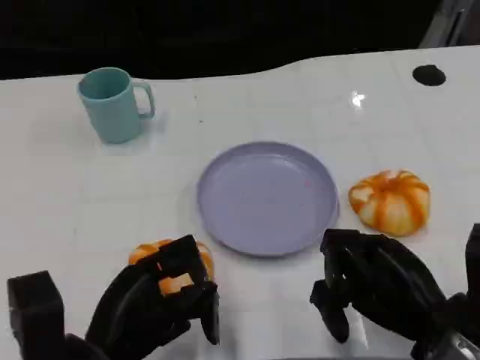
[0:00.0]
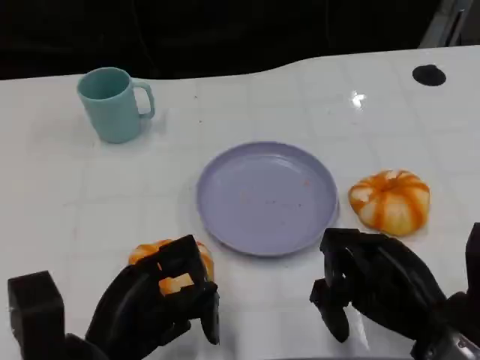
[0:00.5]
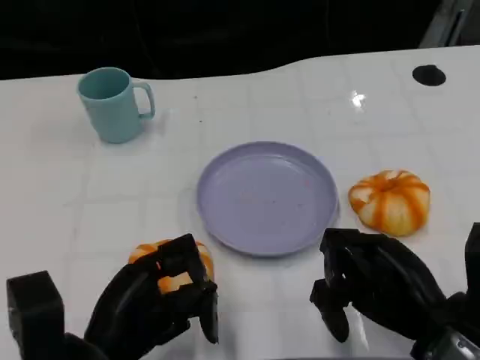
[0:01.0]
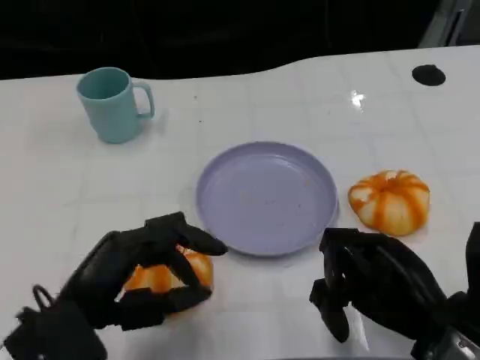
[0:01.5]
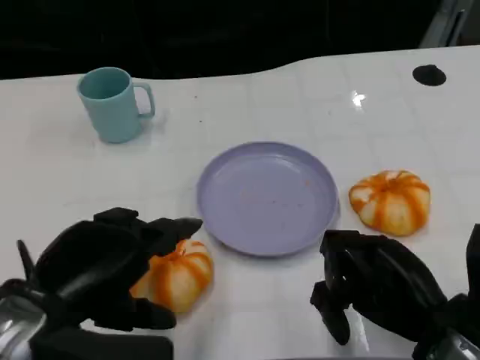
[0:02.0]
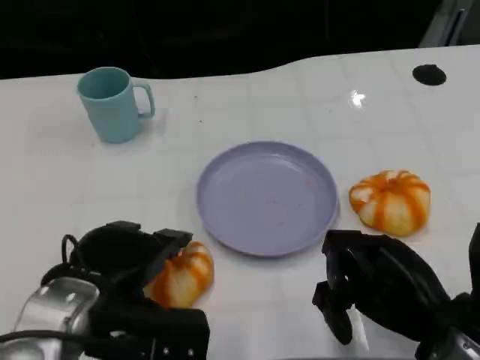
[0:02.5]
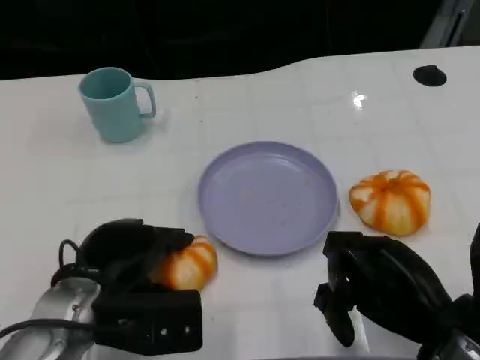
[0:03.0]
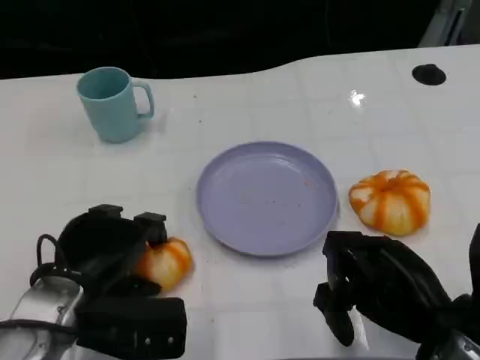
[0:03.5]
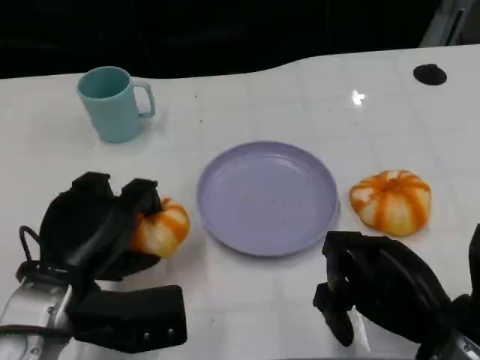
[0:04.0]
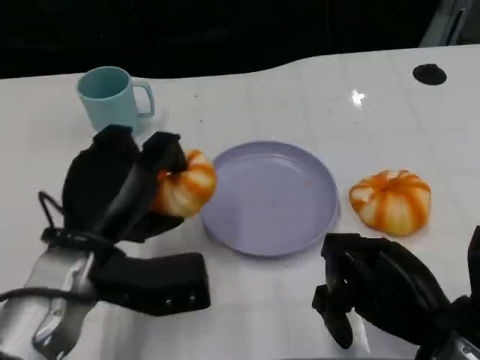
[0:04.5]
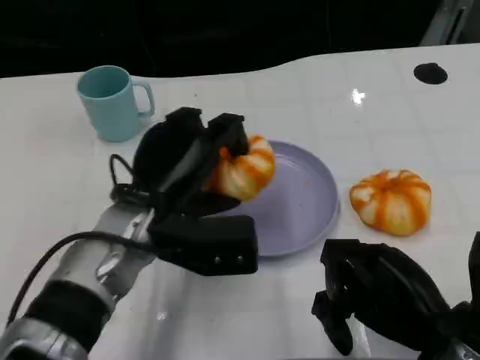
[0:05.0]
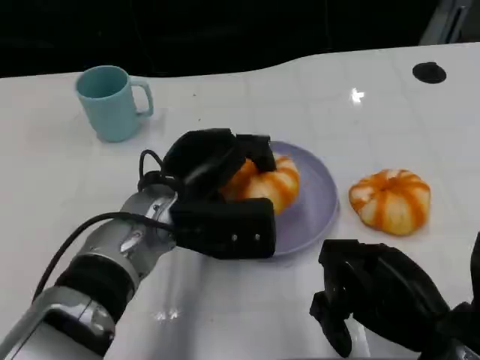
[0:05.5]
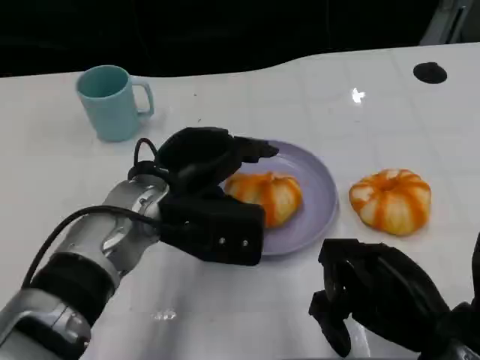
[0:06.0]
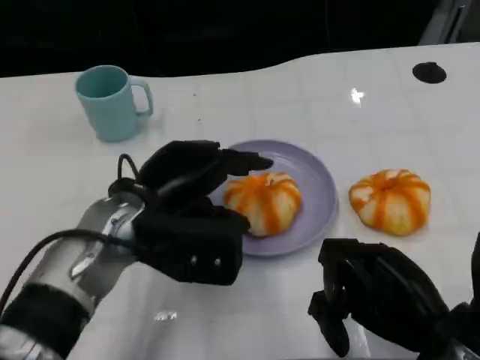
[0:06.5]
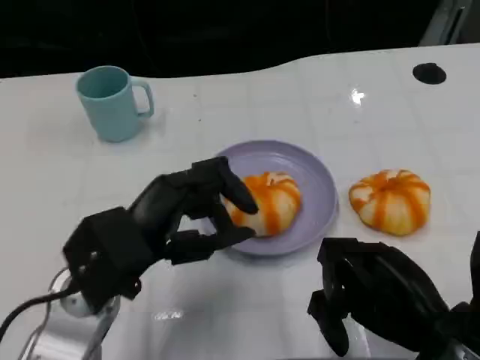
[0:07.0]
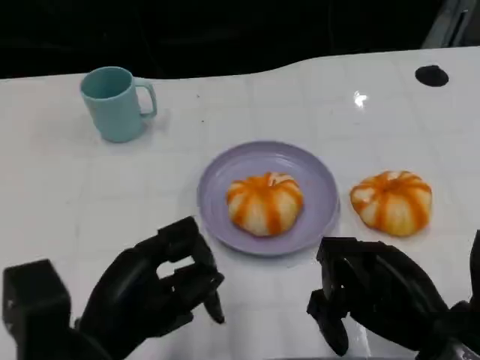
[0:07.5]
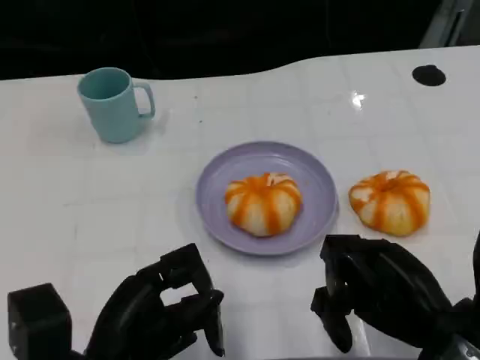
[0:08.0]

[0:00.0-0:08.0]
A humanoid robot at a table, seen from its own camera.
Task of the whole recording: Grasp the bread from the table and place it into the plate.
0:00.0 to 0:02.0: The left hand goes some 10 cm upward.
0:02.0 to 0:04.0: The left hand is displaced downward by roughly 5 cm.
0:04.0 to 0:06.0: The left hand heads to the right and forward, covering some 10 cm.
0:06.0 to 0:08.0: The left hand travels backward and to the left by approximately 15 cm.

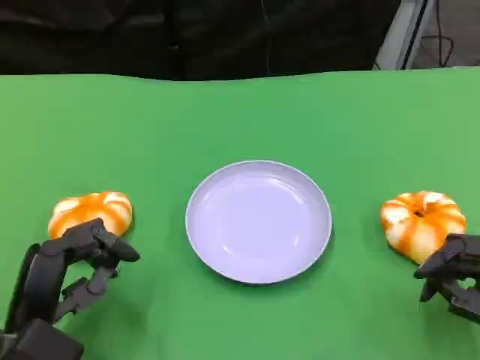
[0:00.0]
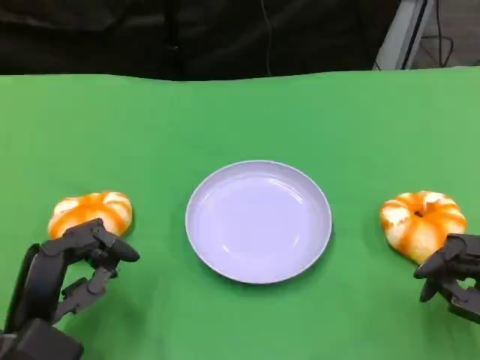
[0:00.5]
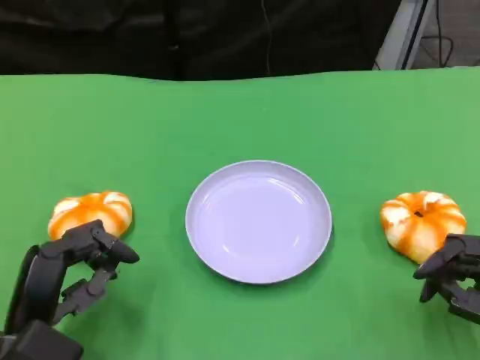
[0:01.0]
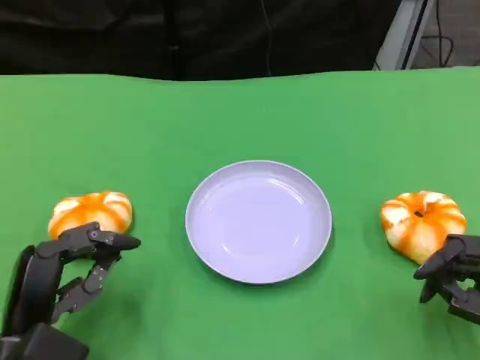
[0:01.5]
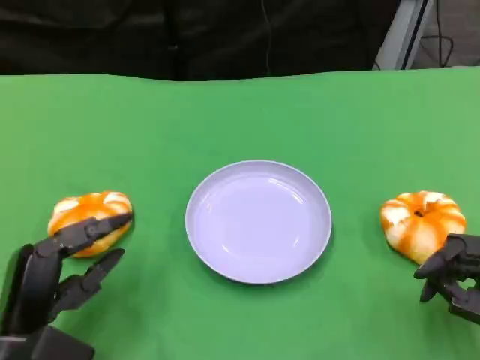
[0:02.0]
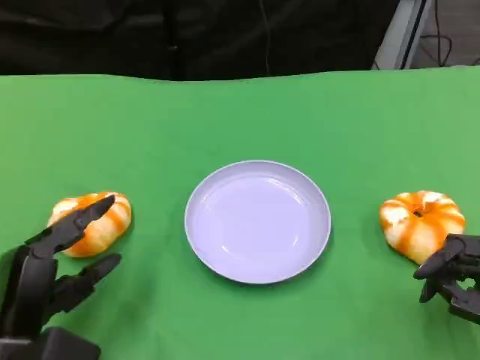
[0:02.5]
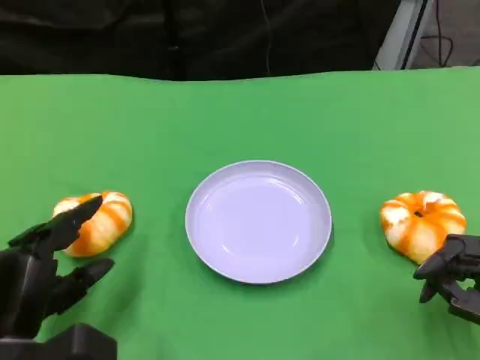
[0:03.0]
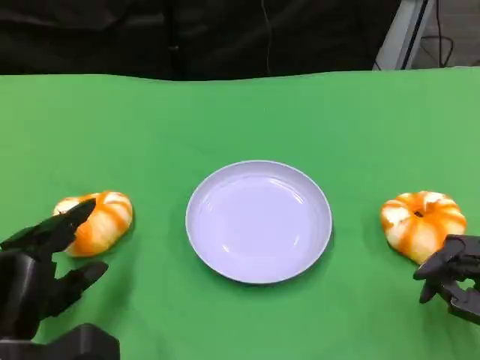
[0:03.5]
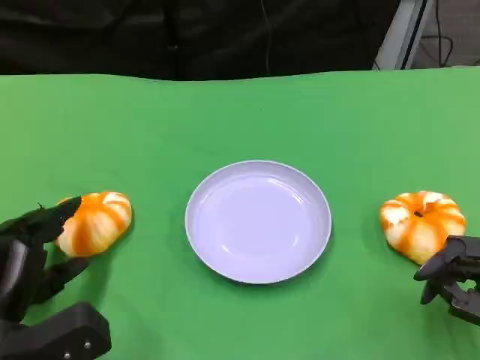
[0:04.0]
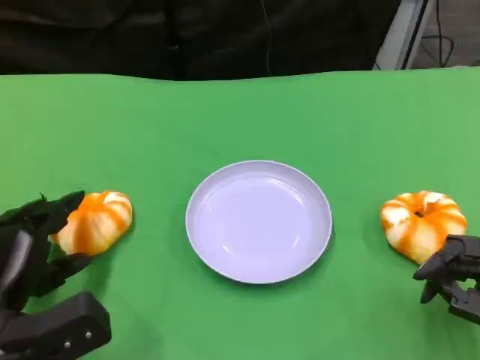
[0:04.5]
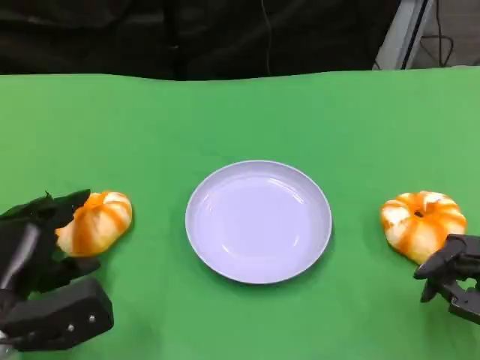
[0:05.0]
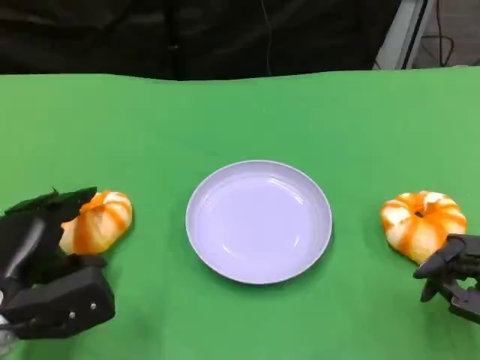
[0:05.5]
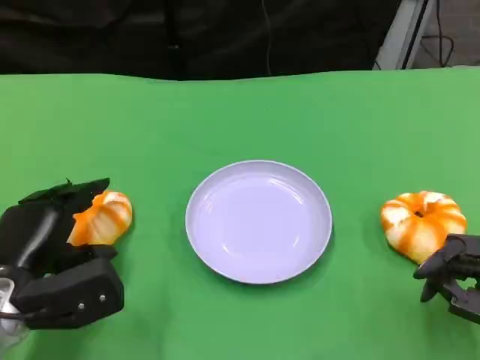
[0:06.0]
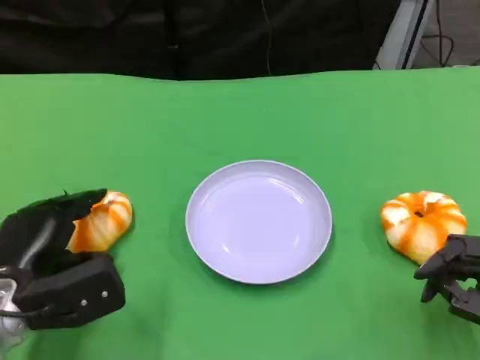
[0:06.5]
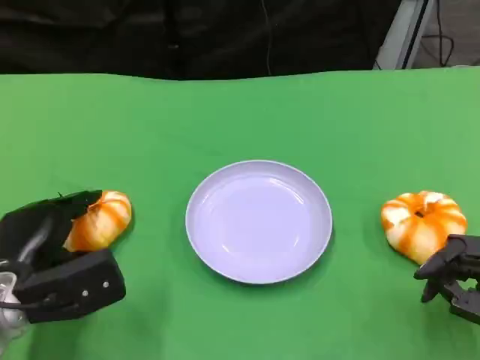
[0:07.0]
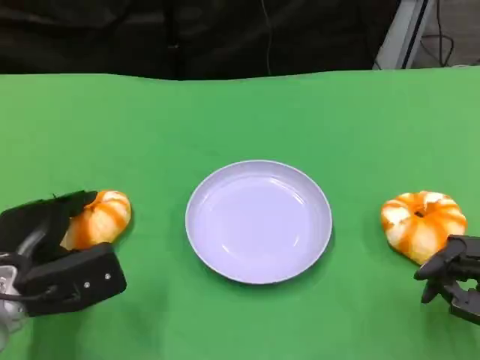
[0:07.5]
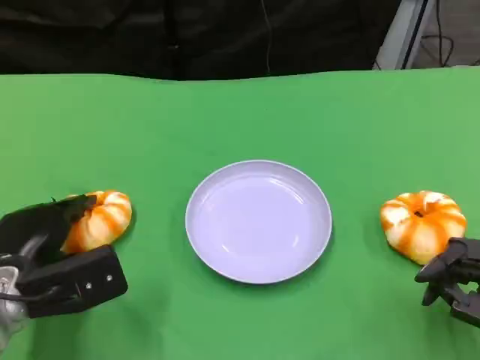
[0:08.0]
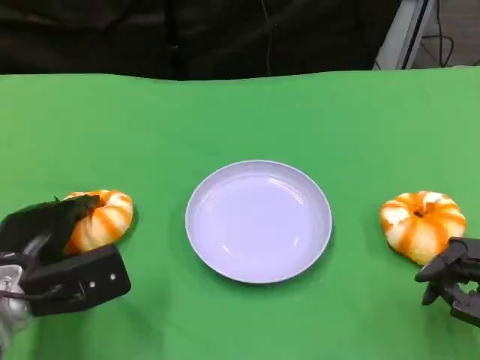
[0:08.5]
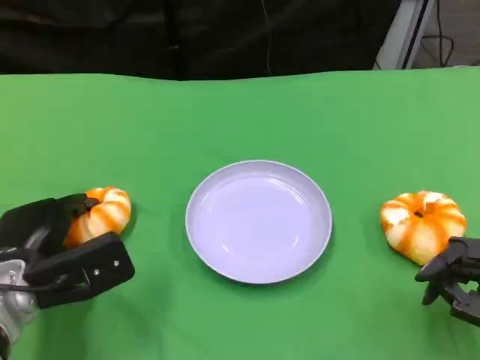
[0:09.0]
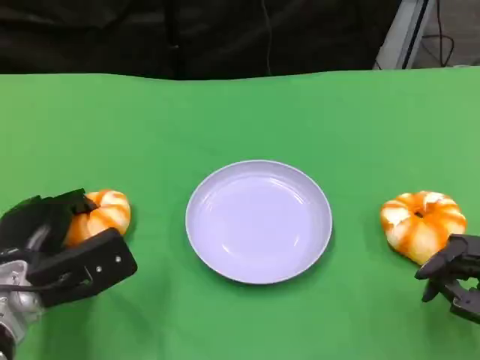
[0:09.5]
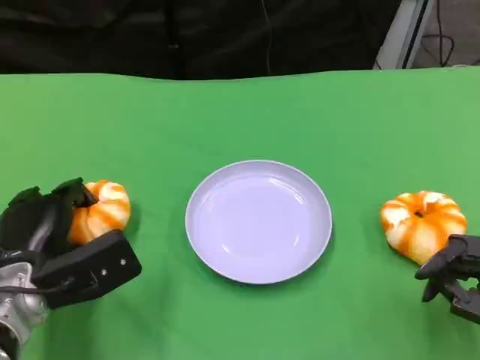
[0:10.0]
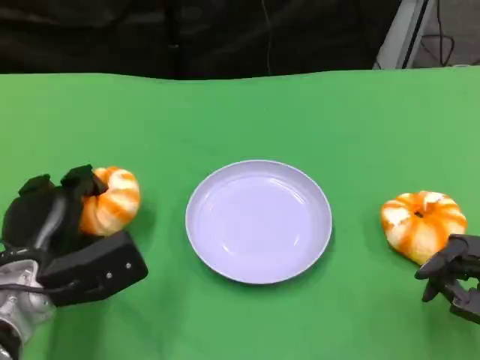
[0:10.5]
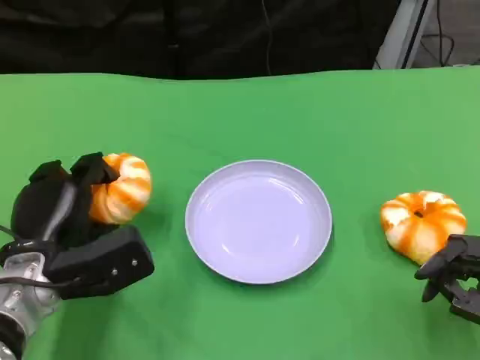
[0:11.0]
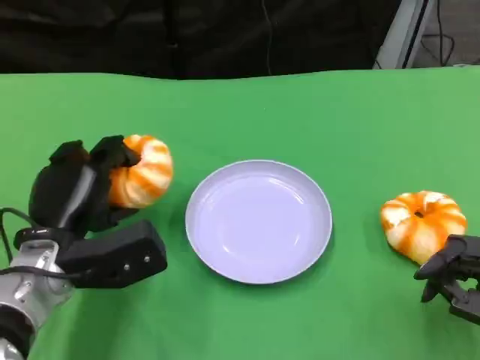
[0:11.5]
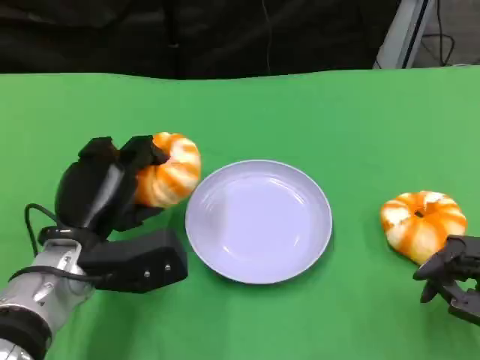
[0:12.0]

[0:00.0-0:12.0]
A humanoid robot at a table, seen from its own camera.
Task of the whole recording: Grasp the bread from the table and place it into the plate.
0:00.0 to 0:02.0: The hands stay close to where they were, moving slightly.
0:04.0 to 0:06.0: There are only small adjustments of the hands.
0:06.0 to 0:10.0: The hands stay close to where they were, moving slightly.
0:10.0 to 0:12.0: The left hand goes about 5 cm to the right.

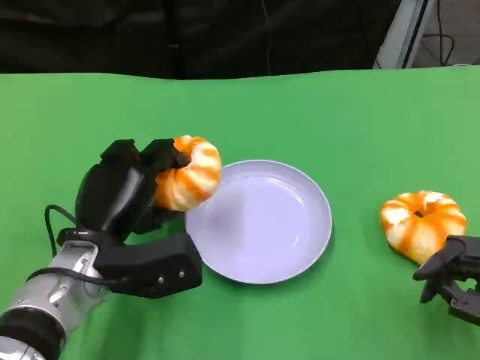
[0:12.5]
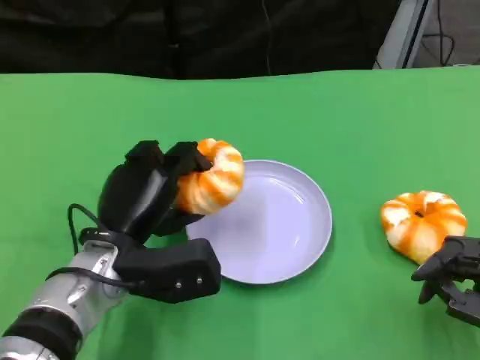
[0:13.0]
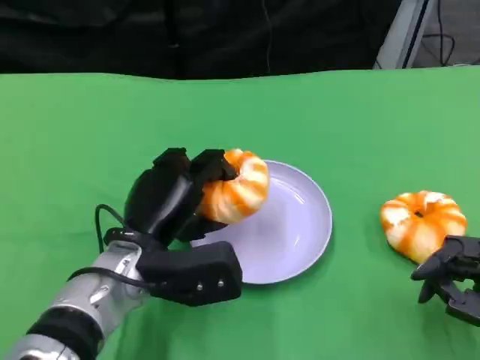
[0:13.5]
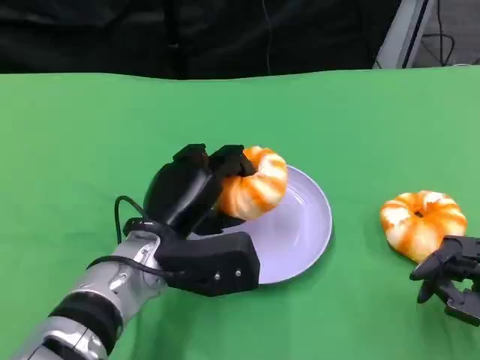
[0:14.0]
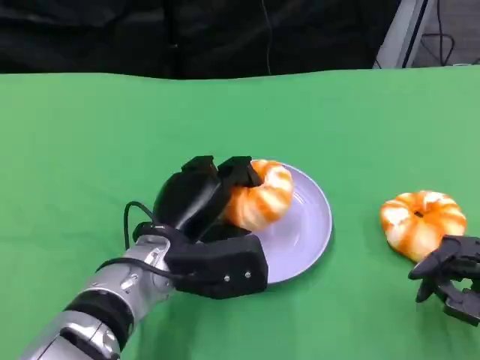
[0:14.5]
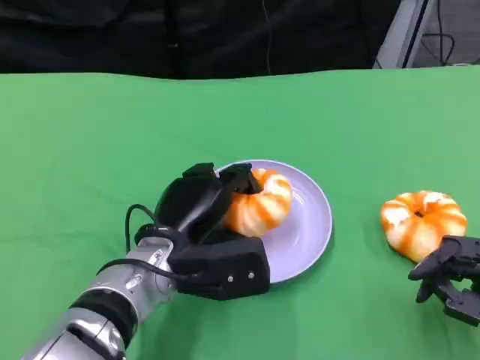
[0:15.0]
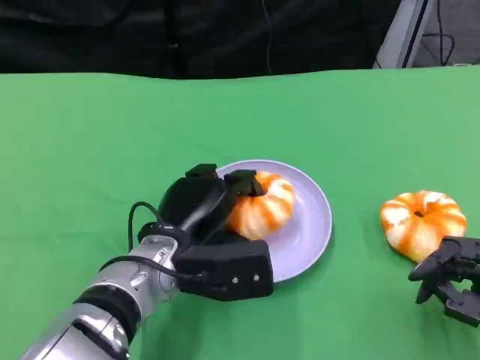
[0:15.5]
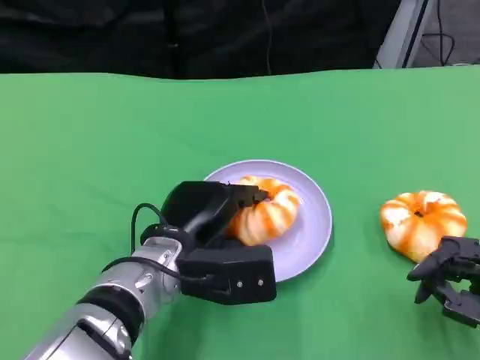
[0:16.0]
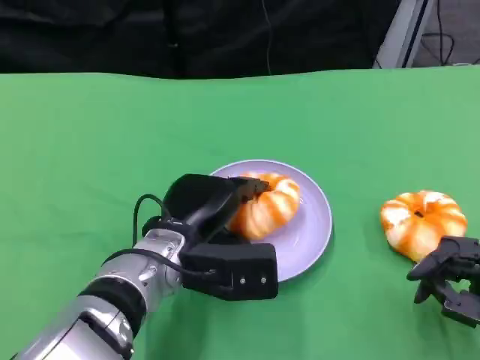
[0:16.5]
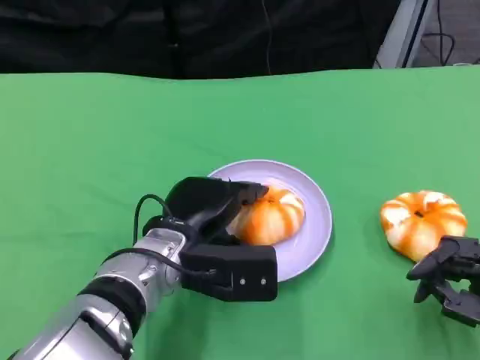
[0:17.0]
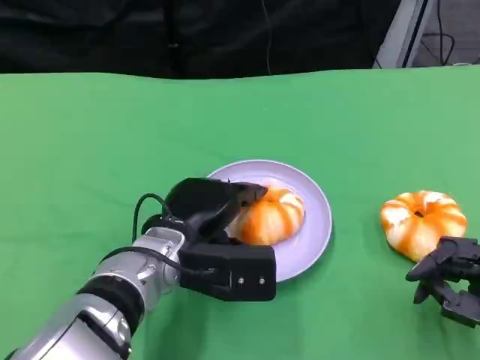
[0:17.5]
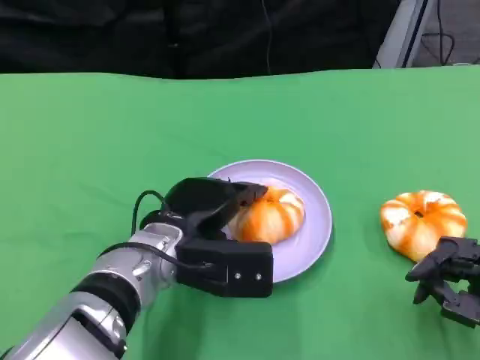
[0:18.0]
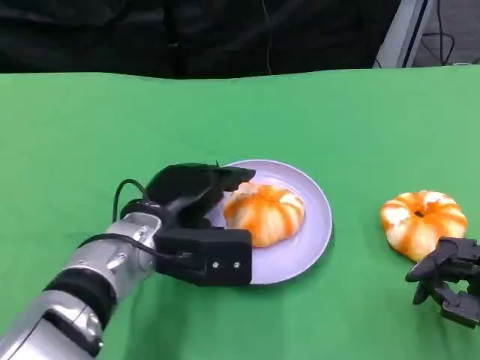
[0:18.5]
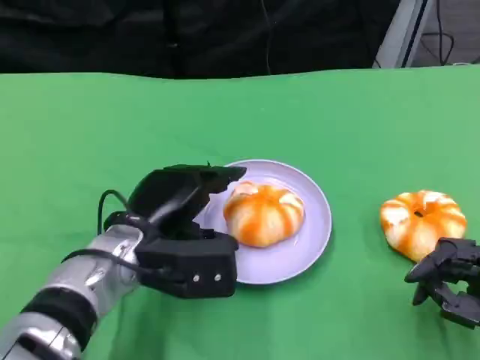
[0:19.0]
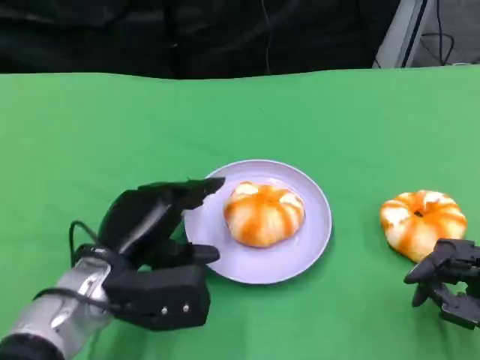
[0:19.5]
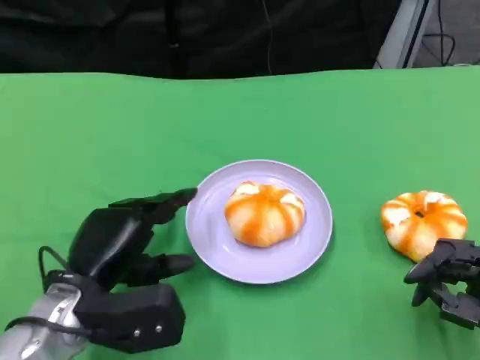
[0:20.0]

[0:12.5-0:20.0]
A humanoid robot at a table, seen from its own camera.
Task of the whole recording: Grasp the bread from the table and place it into the plate.
0:12.5 to 0:14.5: The left hand shifts about 5 cm to the right.
0:14.5 to 0:16.5: The hands make only small movements.
0:16.5 to 0:18.0: There are only small adjustments of the hands.
0:18.0 to 0:20.0: The left hand travels to the left and backward by approximately 10 cm.
